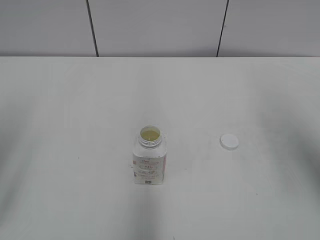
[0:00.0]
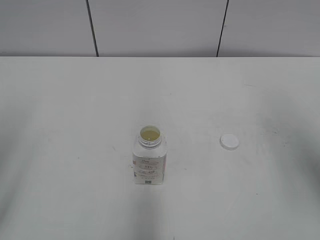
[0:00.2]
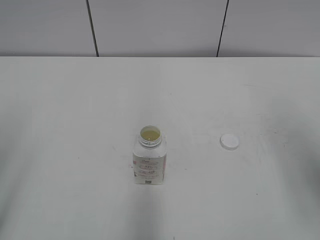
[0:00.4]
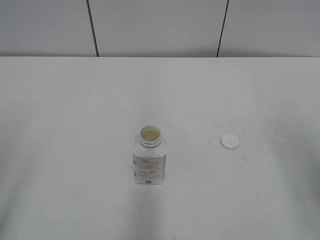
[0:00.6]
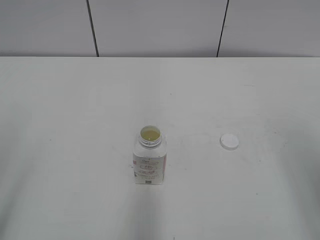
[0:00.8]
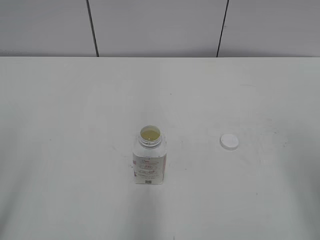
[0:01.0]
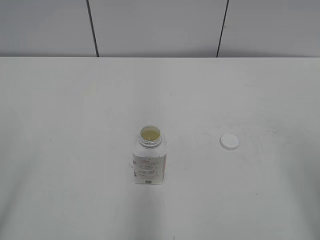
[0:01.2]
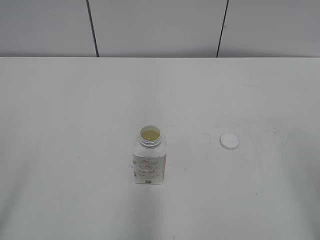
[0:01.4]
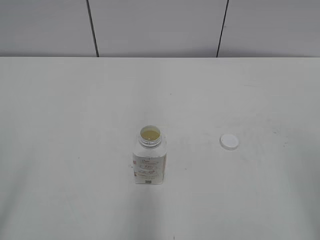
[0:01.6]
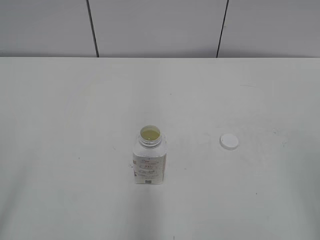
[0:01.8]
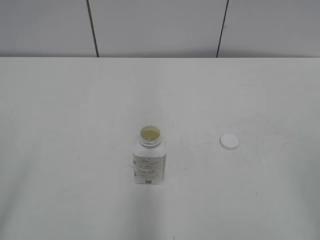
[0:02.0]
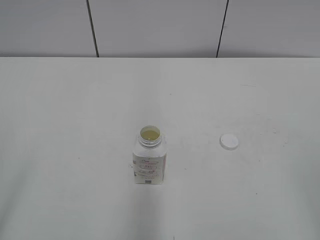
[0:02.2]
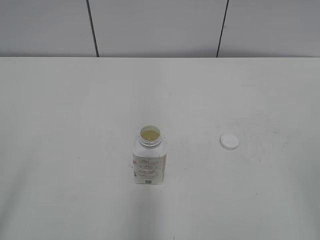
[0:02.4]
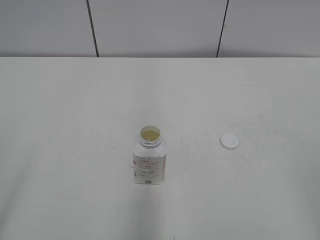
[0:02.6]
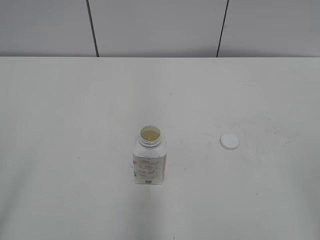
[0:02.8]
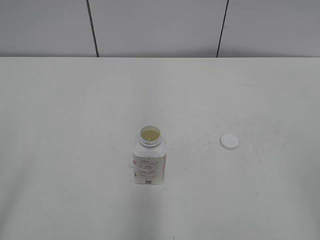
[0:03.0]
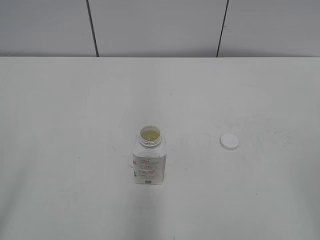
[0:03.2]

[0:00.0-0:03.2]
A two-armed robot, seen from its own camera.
0:00.0 to 0:01.6: The right gripper is displaced backward by approximately 15 cm.

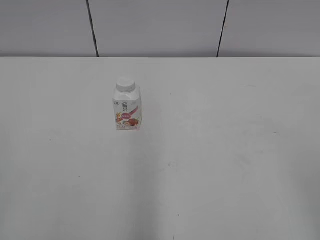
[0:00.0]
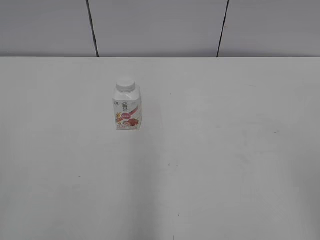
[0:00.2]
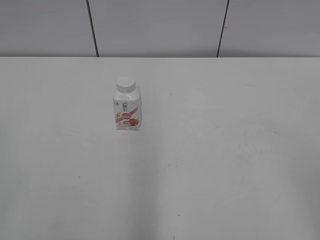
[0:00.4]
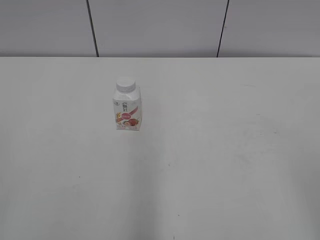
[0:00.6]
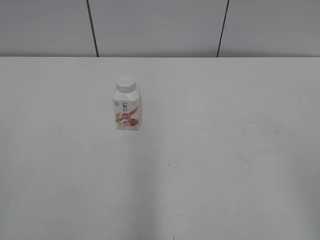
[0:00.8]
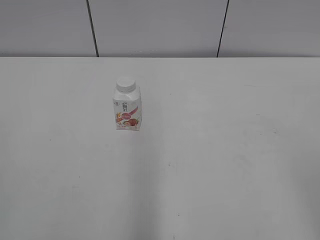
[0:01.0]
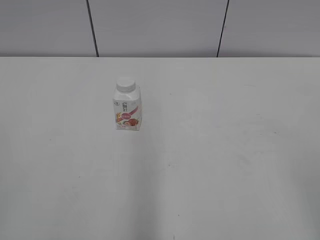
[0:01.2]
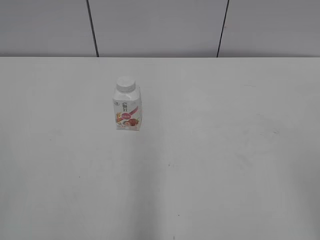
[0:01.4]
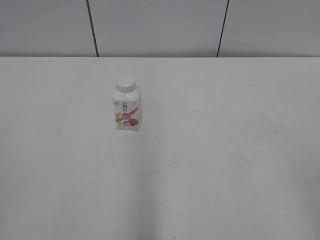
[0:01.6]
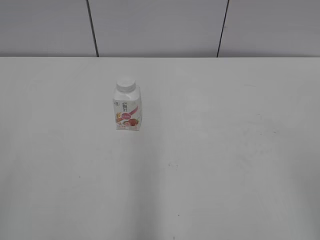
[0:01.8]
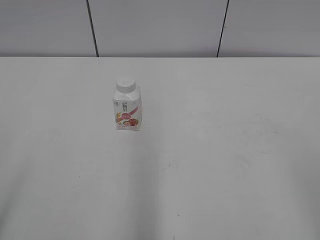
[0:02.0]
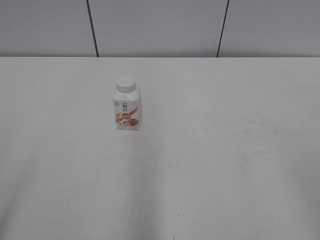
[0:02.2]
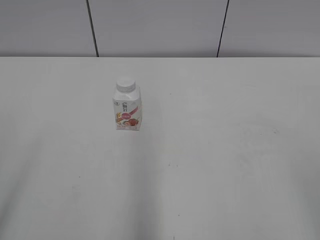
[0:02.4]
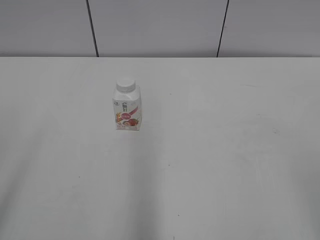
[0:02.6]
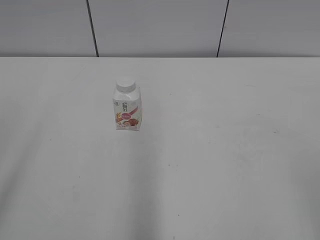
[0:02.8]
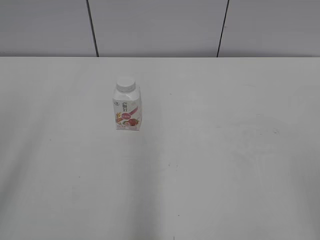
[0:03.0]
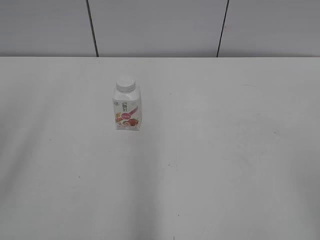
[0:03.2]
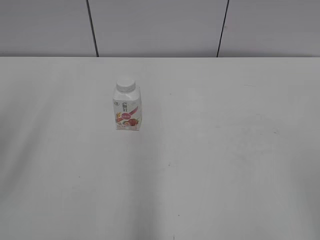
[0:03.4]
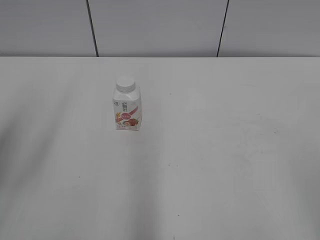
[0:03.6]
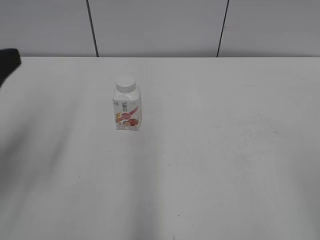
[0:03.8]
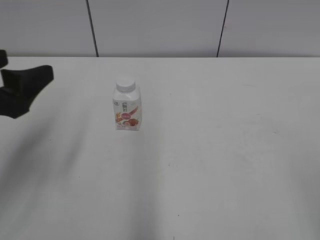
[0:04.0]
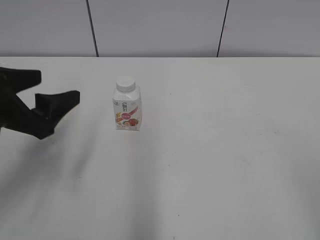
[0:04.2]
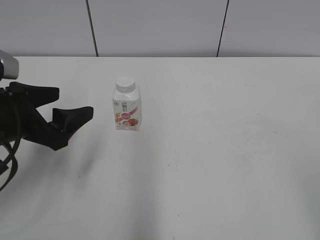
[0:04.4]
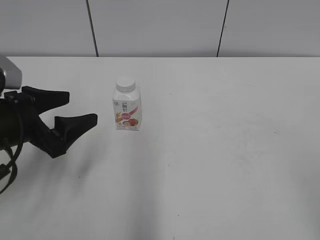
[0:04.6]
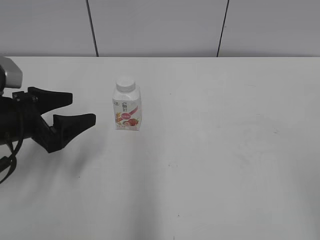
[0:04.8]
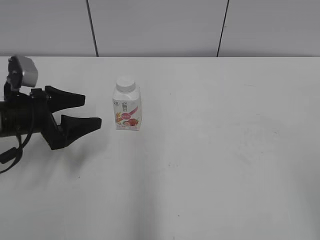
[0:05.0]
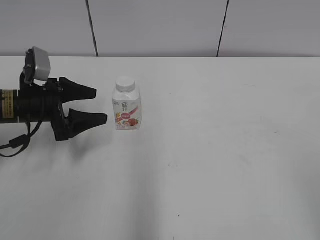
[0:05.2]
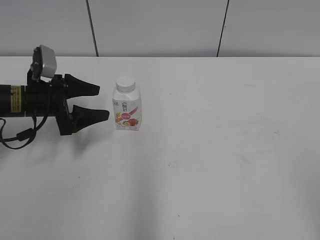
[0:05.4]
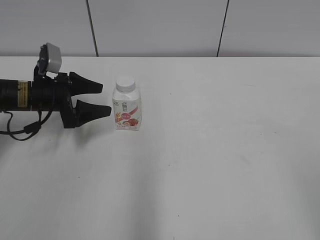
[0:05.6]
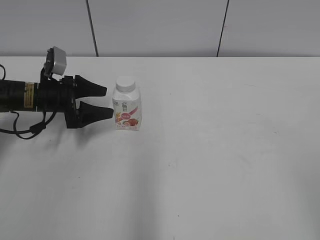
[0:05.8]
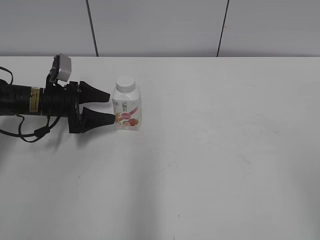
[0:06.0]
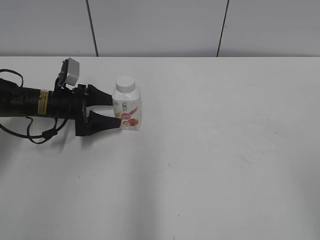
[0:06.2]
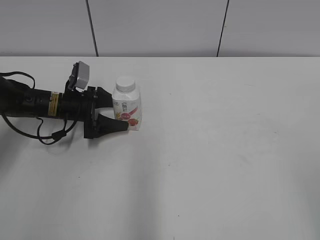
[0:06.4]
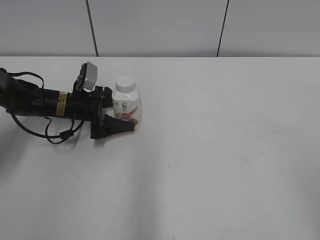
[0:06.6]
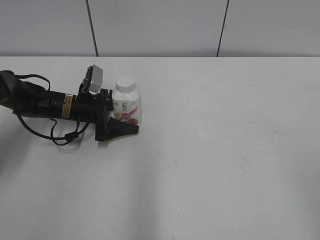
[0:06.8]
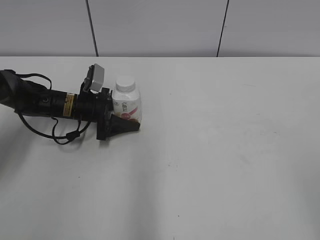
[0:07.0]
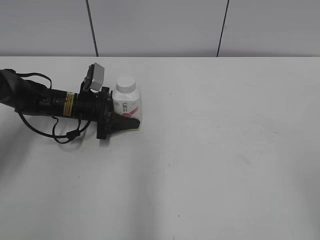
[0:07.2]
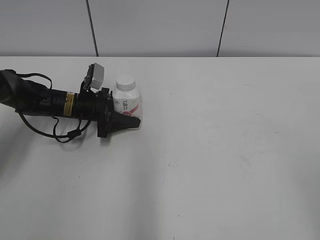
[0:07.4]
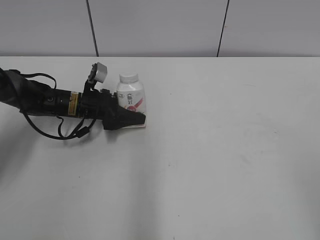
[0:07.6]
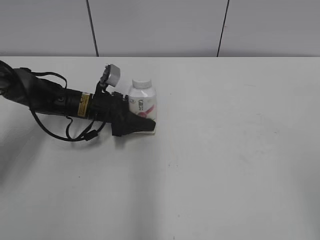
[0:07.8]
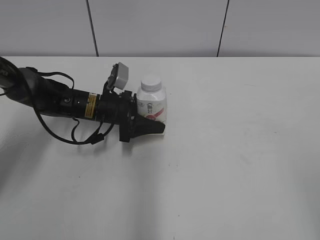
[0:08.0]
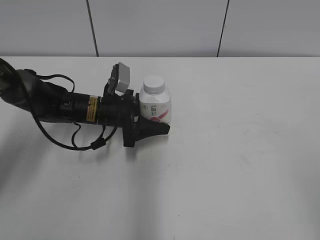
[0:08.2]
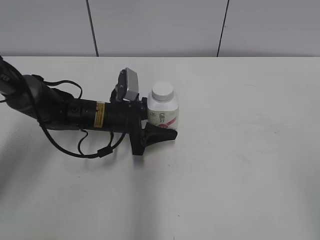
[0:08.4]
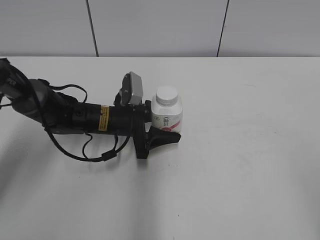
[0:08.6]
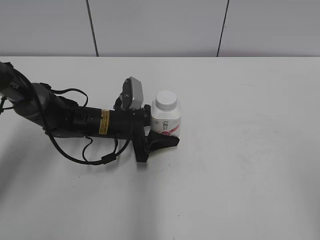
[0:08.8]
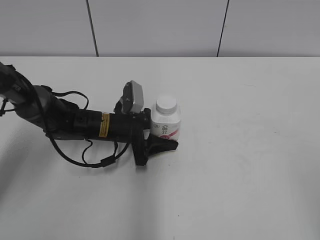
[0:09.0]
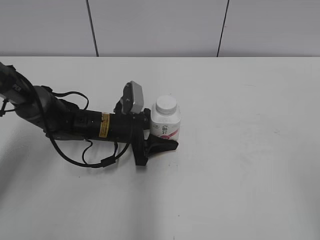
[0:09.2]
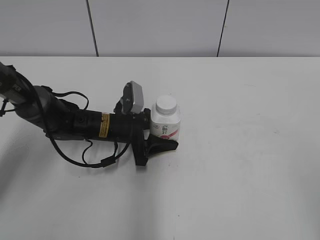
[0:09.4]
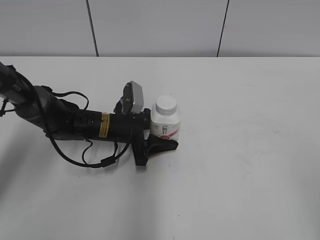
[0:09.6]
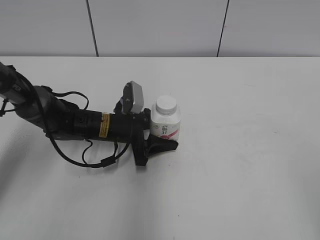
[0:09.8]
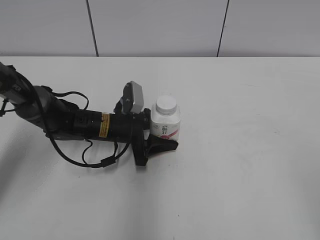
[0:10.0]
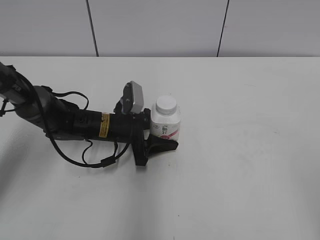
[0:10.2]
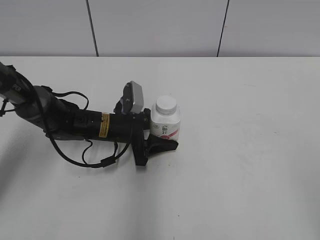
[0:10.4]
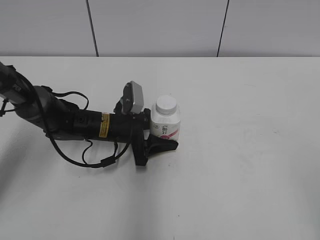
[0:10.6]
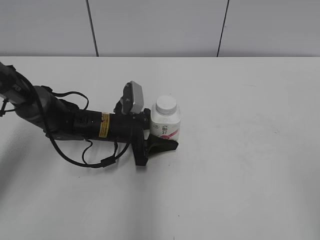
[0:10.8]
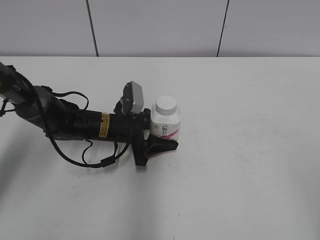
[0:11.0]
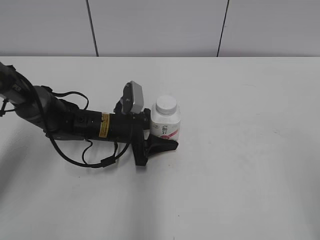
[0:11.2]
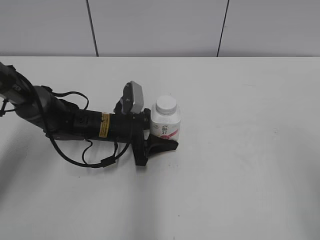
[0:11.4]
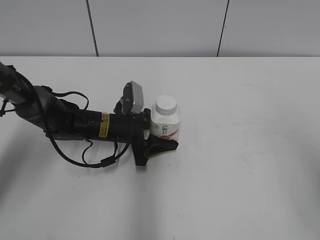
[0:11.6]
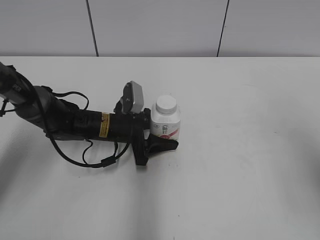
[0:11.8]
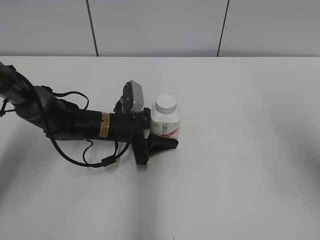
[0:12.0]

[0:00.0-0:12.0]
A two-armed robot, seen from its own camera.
Step, 0:00.0 to 0:07.2: Grasp the bottle and move it to the center of the table with the left gripper.
Step, 0:07.4 to 0:09.6: Lift the bottle and move it to the center of the table with the left gripper.
0:03.0 to 0:04.4: The left gripper heads downward, forward and to the right, covering about 25 cm.
0:04.4 to 0:06.0: The left gripper moves forward and downward, some 20 cm.
0:06.0 to 0:07.6: The left gripper moves to the right, some 5 cm, and closes up.
0:07.6 to 0:09.0: The left gripper moves to the right and backward, roughly 10 cm.
0:09.0 to 0:10.4: The two grippers keep their place.
0:10.4 to 0:12.0: The right gripper moves forward, roughly 20 cm.

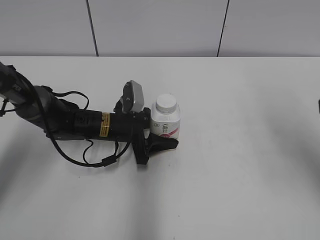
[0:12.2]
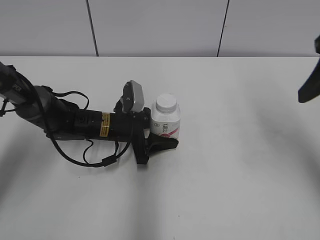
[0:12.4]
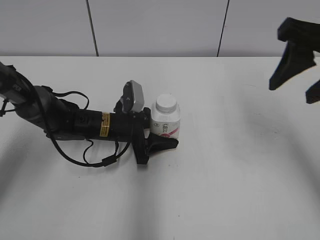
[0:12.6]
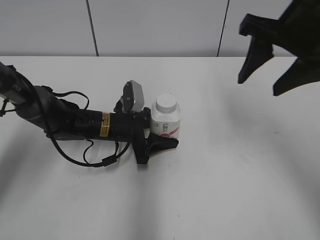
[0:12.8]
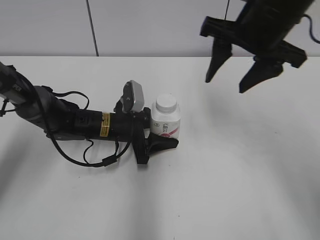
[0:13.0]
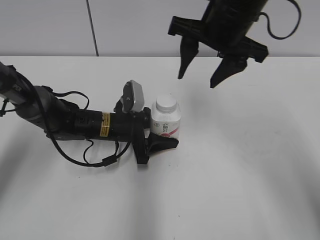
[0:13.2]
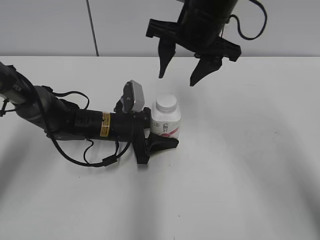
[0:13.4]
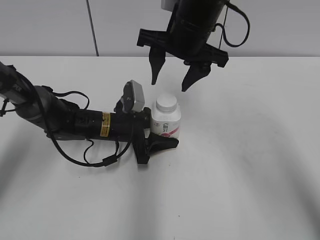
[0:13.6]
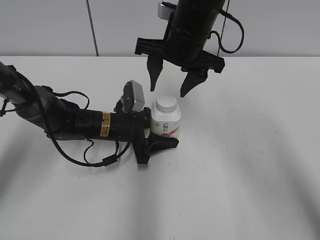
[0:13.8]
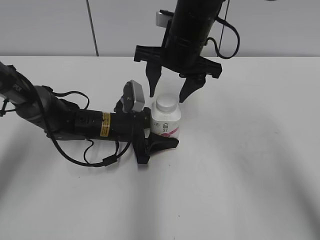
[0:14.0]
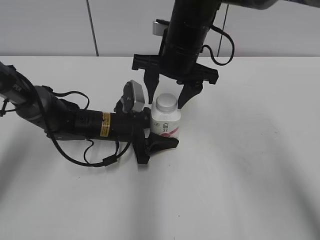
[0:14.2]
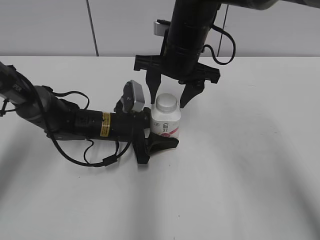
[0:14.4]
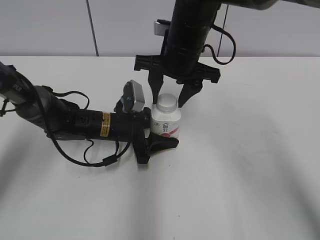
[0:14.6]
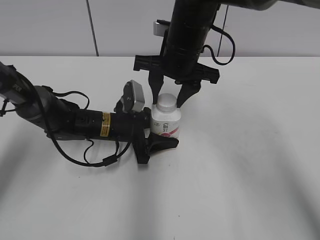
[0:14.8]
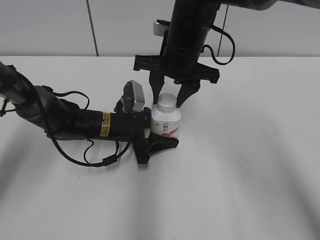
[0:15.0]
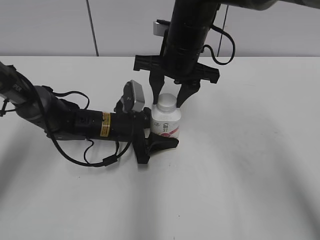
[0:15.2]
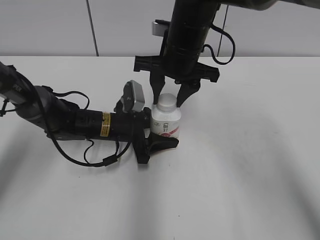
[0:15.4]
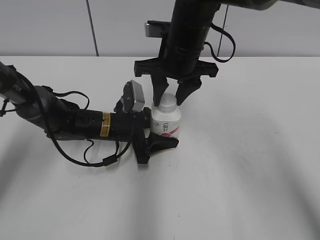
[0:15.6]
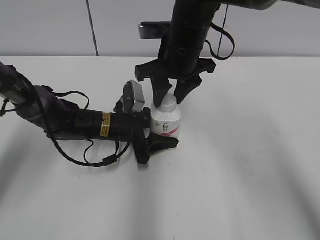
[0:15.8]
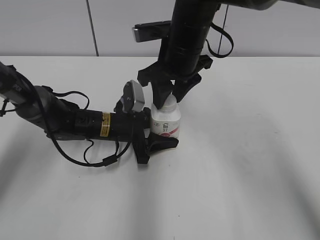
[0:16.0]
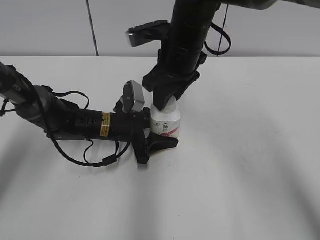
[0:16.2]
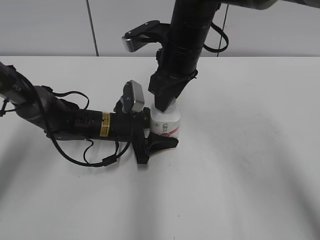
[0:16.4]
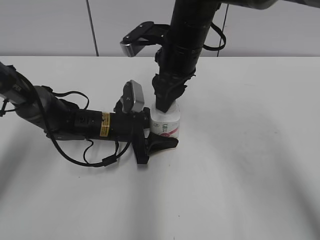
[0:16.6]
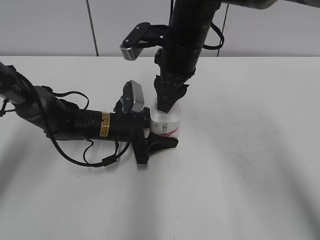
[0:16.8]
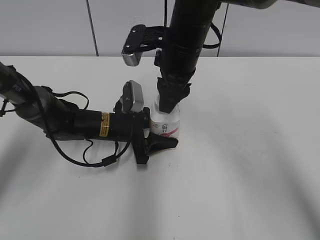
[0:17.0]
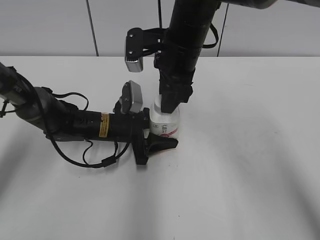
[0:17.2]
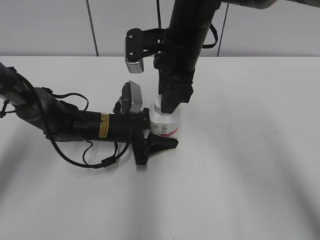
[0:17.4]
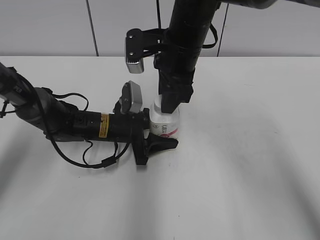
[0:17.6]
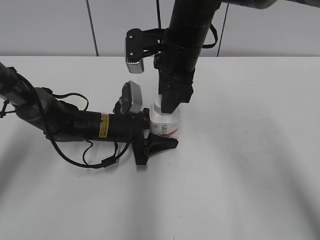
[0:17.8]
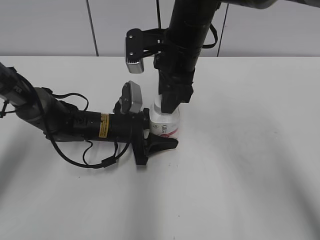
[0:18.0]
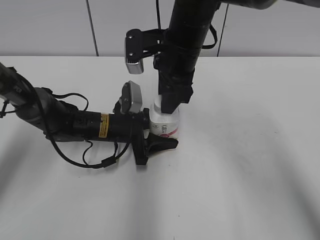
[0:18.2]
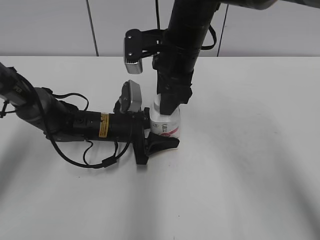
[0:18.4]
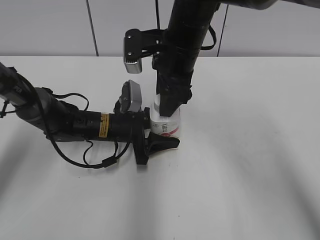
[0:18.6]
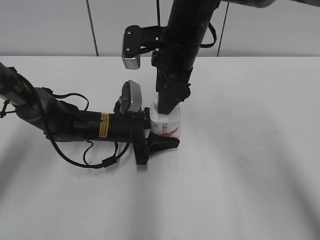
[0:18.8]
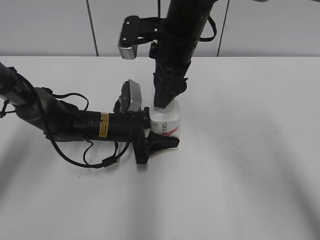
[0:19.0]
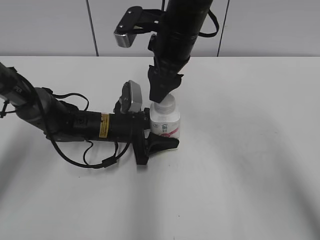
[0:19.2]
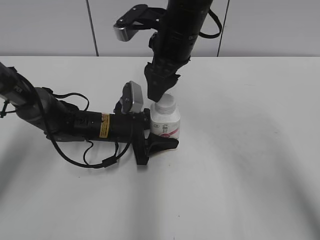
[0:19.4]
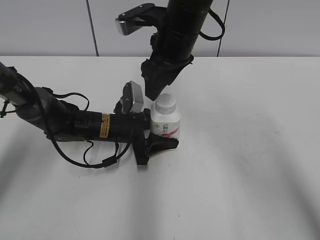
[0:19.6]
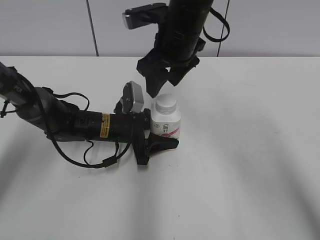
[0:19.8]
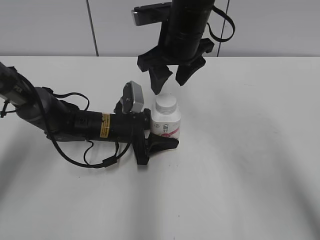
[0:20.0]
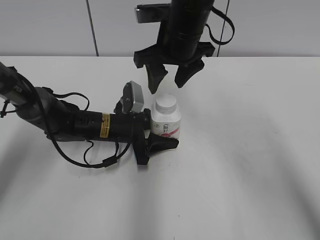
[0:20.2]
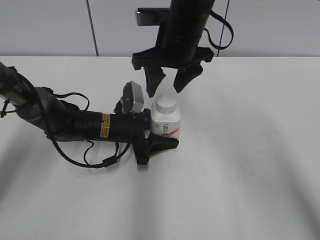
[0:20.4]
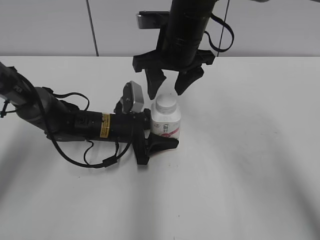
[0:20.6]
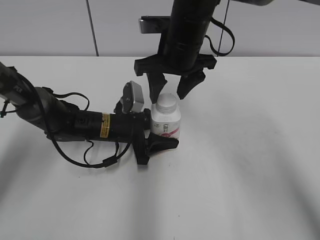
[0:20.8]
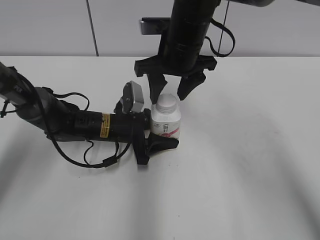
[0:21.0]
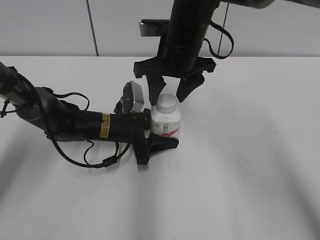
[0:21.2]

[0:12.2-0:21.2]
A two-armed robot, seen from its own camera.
0:12.2 to 0:13.8: The right gripper goes about 30 cm to the left and forward.
0:13.8 to 0:15.2: The right gripper closes its fingers.
0:18.2 to 0:19.8: The right gripper opens its fingers.
